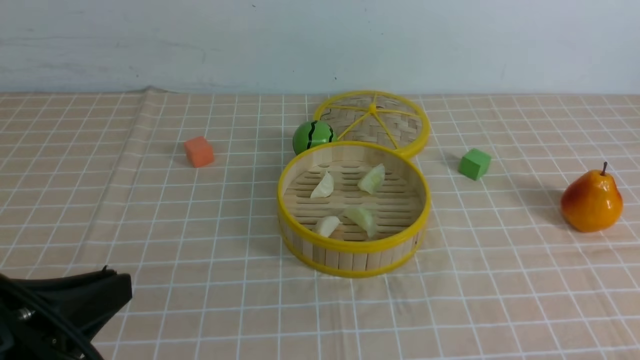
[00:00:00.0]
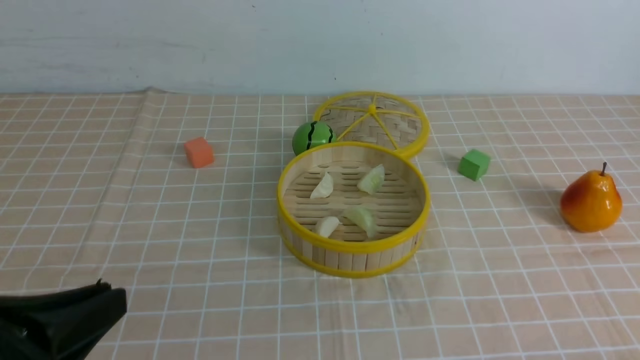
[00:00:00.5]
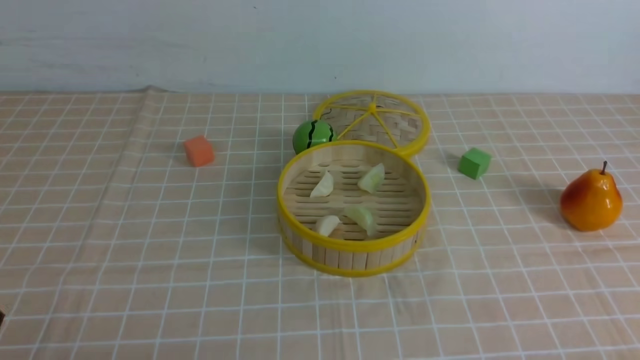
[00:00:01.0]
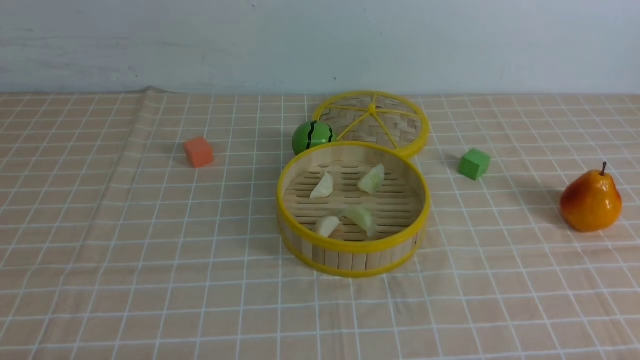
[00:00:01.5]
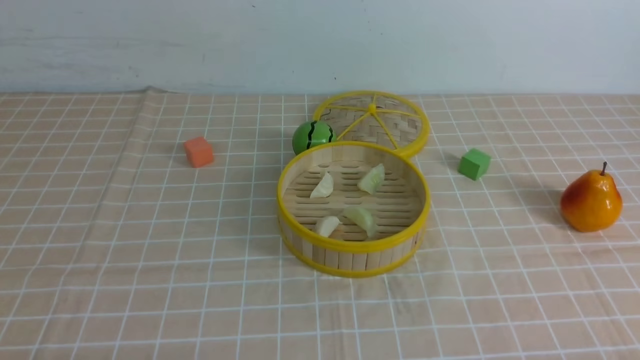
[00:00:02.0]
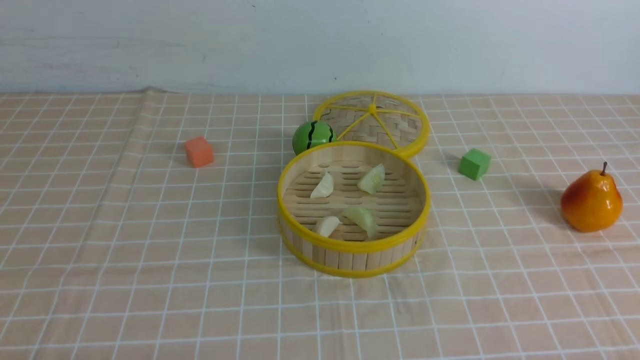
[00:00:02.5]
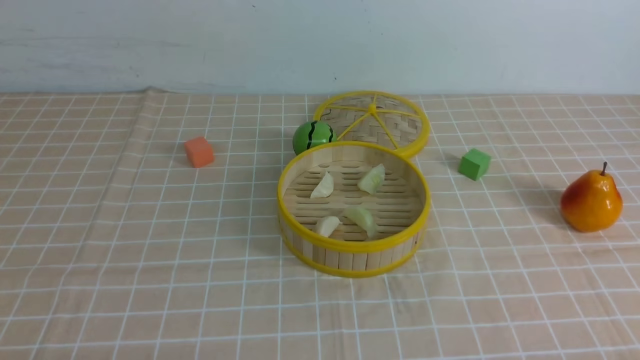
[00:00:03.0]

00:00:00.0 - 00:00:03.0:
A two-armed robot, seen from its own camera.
Task of the whole recording: put the dumplings into the steamer on the table with the brown tablecloth.
00:00:00.0 - 00:00:01.5: The left gripper is displaced downward and to the left by approximately 15 cm.
00:00:01.5 - 00:00:03.0: Both grippers stay put.
